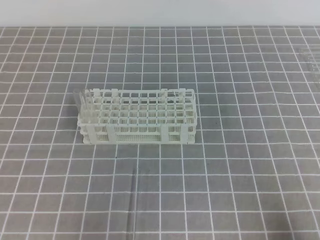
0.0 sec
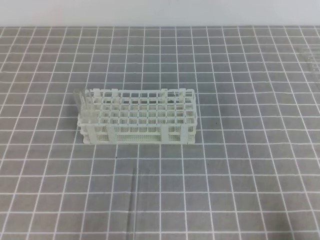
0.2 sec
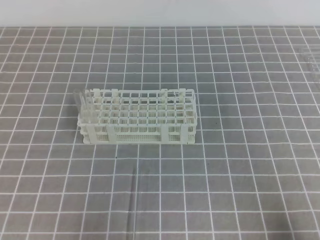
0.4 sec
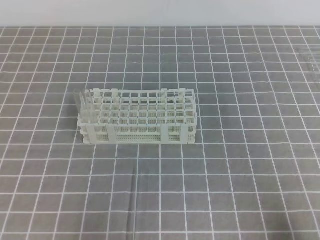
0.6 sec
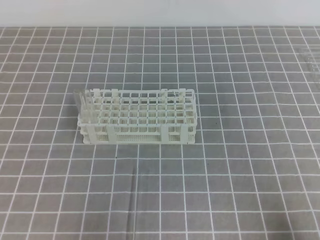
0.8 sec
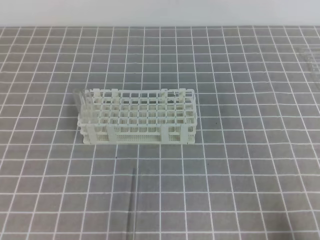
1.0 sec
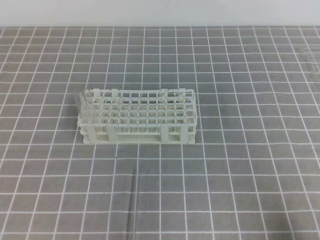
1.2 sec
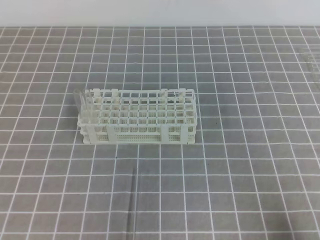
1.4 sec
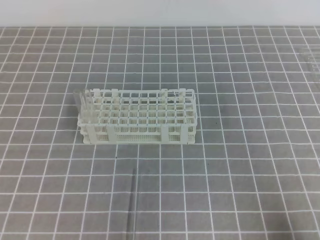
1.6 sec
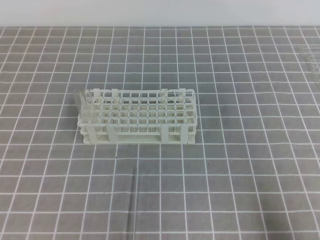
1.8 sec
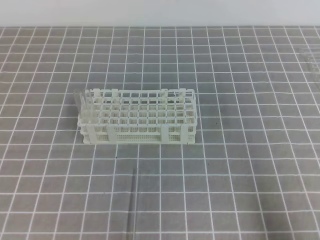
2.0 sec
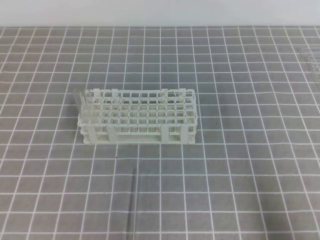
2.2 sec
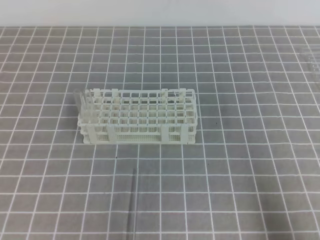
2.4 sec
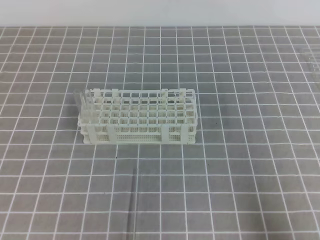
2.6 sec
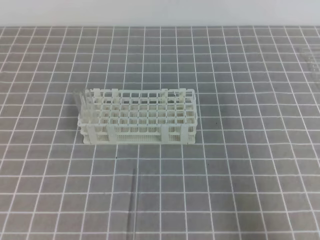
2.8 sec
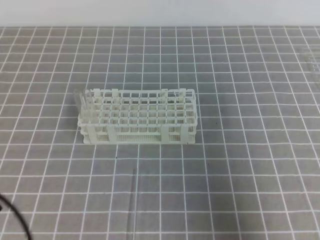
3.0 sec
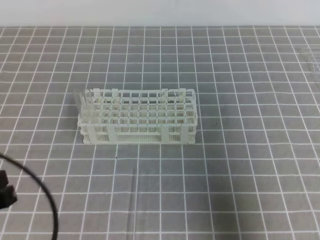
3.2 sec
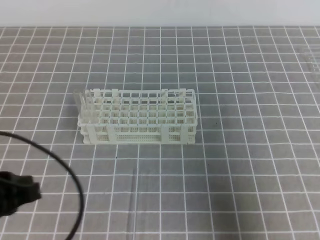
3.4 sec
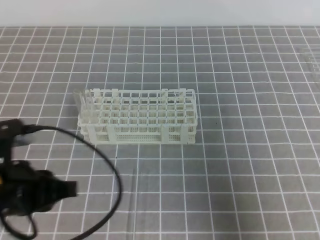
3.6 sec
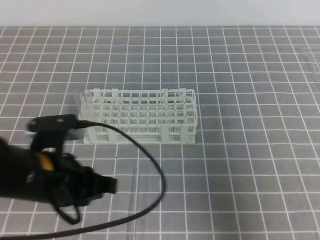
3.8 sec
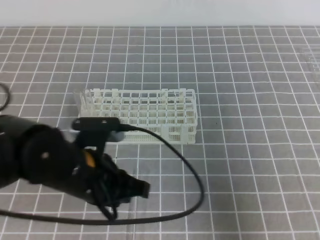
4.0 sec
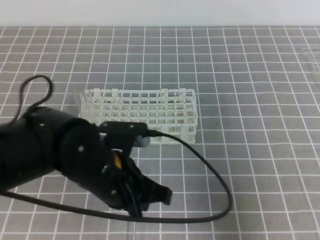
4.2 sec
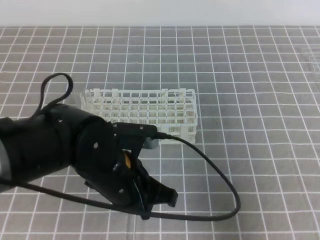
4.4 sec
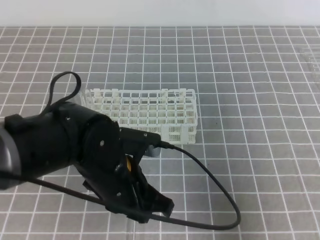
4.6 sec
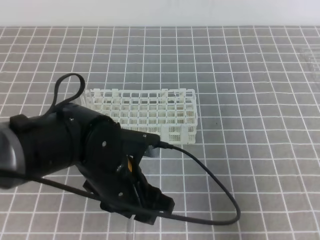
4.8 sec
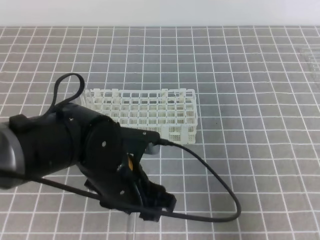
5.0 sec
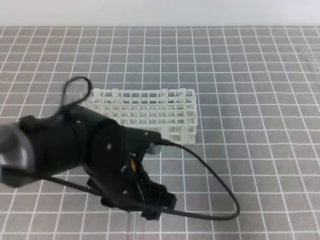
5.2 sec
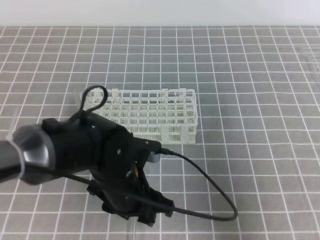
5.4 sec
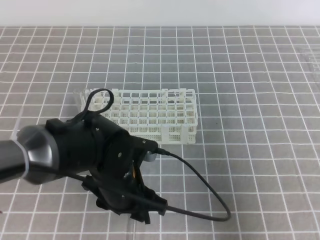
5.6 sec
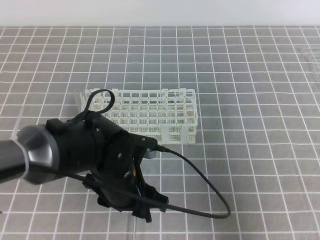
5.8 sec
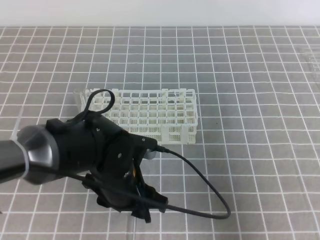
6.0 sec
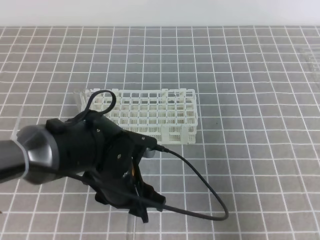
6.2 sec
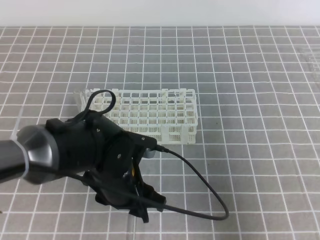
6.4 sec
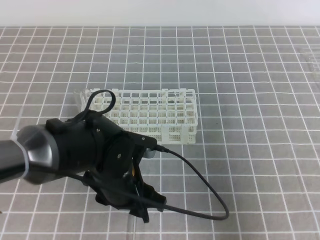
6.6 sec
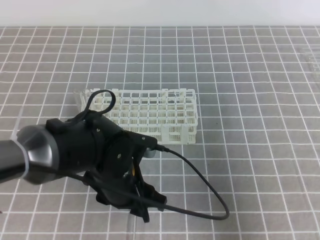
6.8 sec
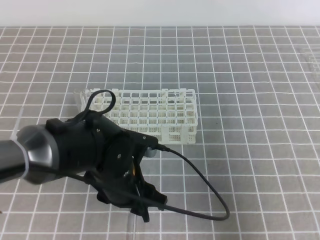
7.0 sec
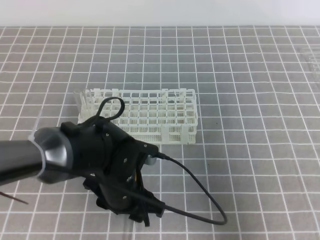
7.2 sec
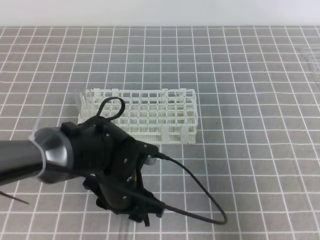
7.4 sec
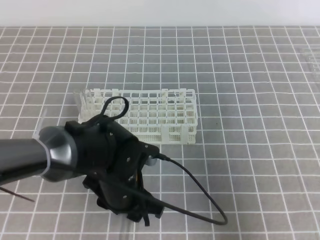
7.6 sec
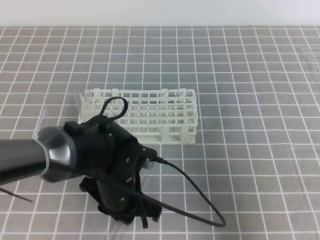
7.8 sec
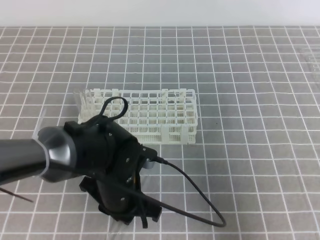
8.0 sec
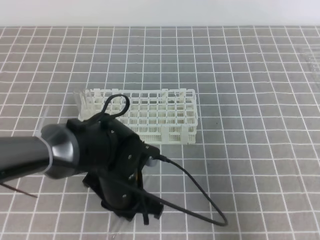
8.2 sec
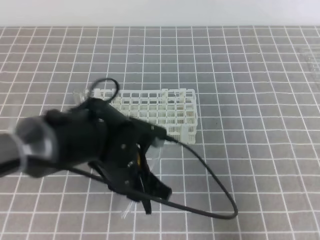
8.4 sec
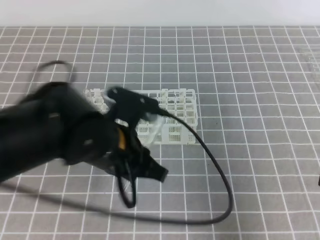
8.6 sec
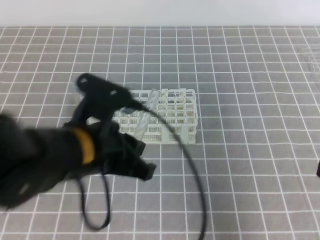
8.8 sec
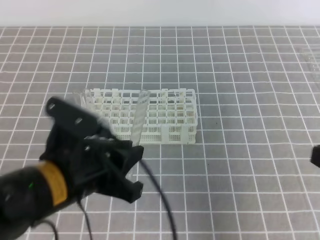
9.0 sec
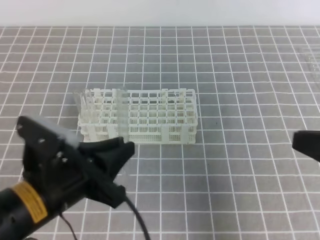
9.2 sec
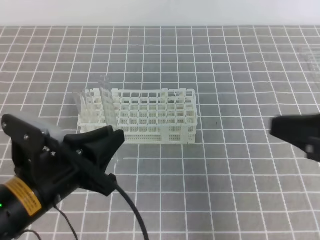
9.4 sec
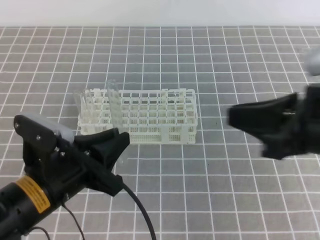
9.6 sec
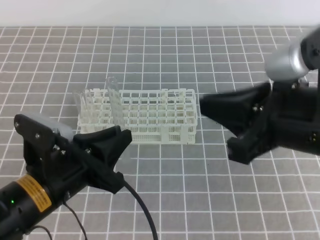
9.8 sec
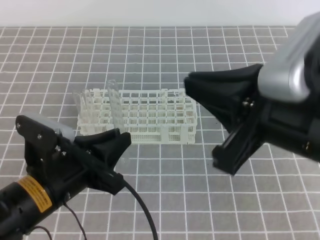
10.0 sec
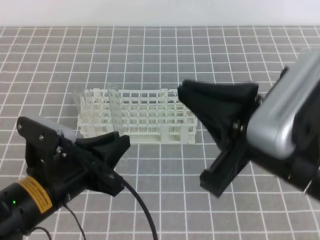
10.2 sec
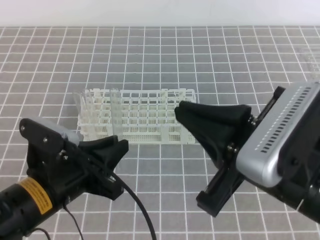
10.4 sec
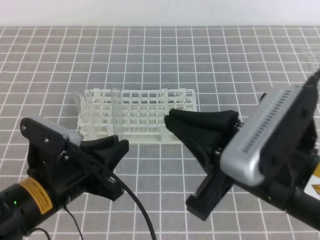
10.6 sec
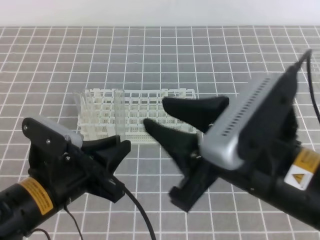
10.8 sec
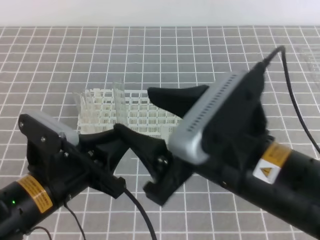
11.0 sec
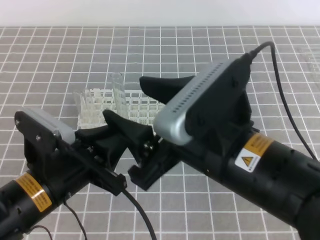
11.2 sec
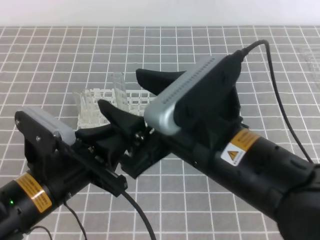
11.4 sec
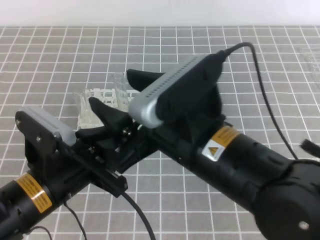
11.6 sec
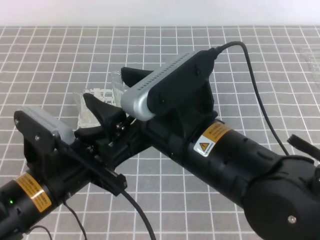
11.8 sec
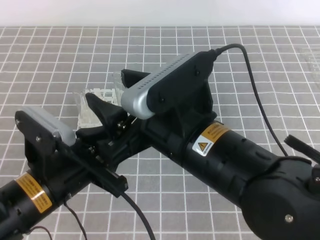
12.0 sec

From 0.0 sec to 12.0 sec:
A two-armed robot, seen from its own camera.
From 1.6 sec to 3.0 sec: The right gripper moves upward, approximately 10 cm. The left gripper ends up some 5 cm from where it was.
From 3.0 sec to 4.4 sec: The left gripper heads to the right and forward, covering about 25 cm.
From 4.4 sec to 6.0 sec: The left gripper shifts by some 5 cm, and opens up.
From 6.0 sec to 7.6 sec: The grippers stay close to where they were, moving slightly.
From 7.6 sec to 9.0 sec: The left gripper travels upward and to the left by approximately 10 cm, and closes up.
From 9.0 sec to 10.4 sec: The left gripper shifts by some 5 cm. The right gripper travels to the left by roughly 15 cm.
From 10.4 sec to 12.0 sec: The right gripper travels to the left by some 10 cm, and opens up.

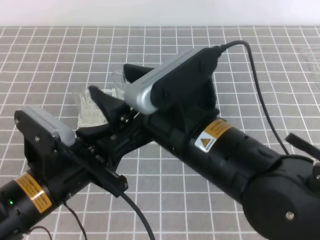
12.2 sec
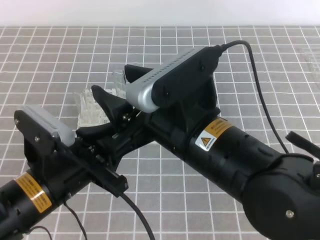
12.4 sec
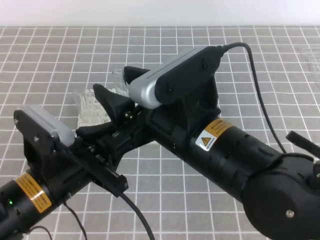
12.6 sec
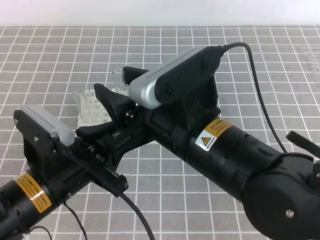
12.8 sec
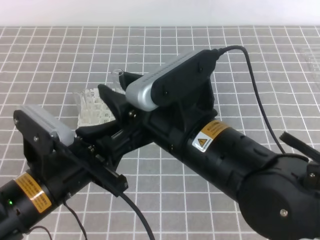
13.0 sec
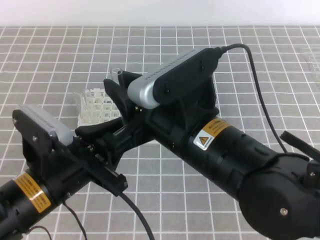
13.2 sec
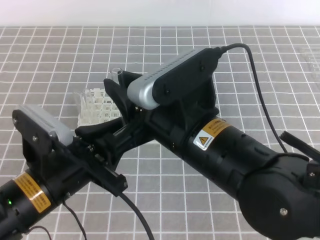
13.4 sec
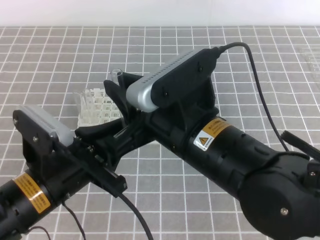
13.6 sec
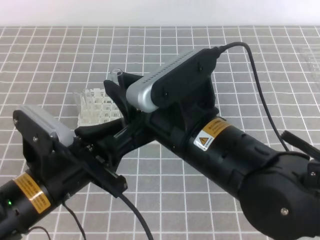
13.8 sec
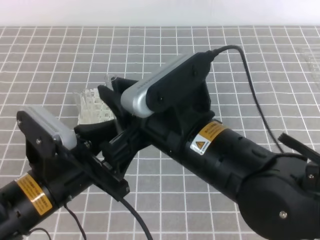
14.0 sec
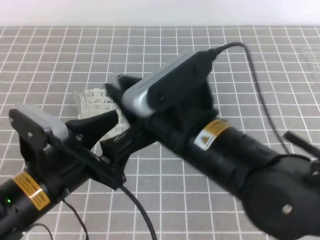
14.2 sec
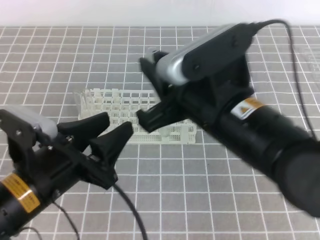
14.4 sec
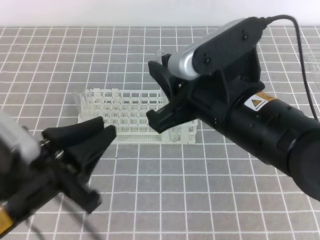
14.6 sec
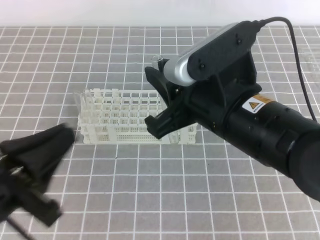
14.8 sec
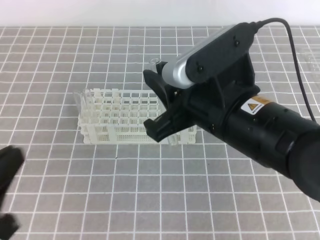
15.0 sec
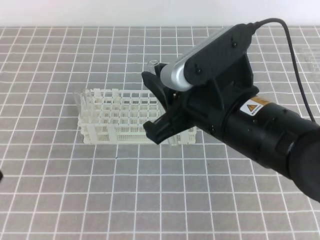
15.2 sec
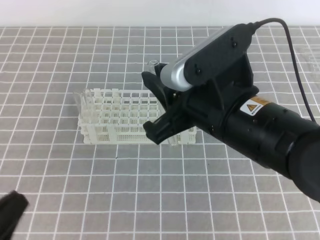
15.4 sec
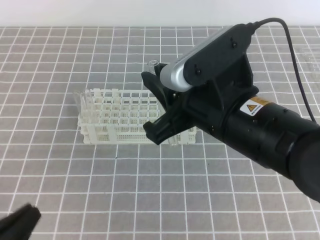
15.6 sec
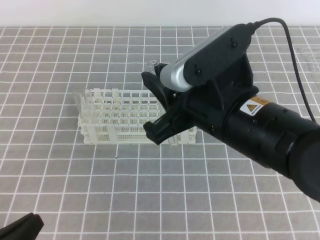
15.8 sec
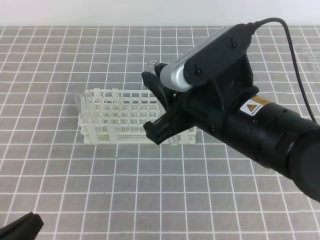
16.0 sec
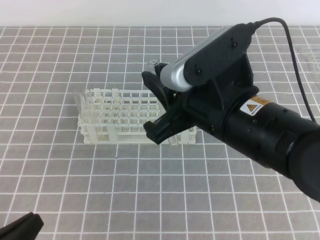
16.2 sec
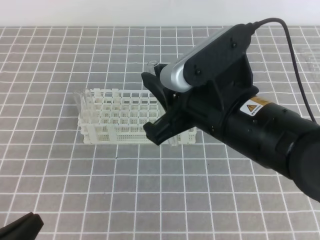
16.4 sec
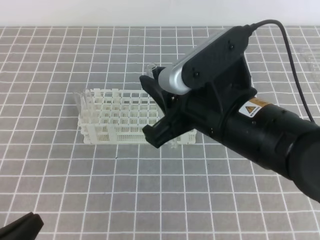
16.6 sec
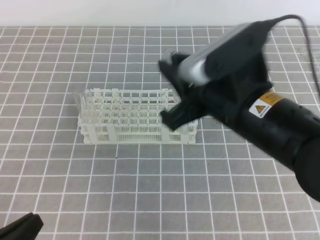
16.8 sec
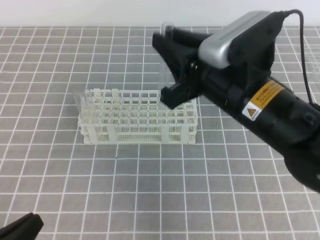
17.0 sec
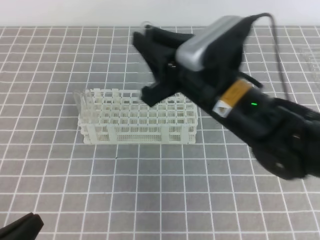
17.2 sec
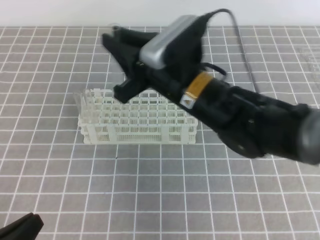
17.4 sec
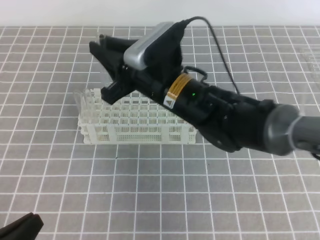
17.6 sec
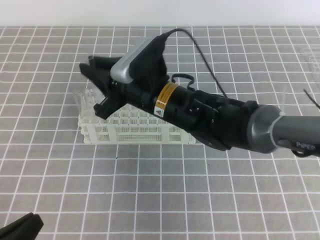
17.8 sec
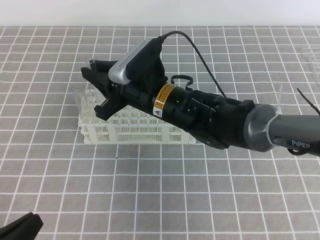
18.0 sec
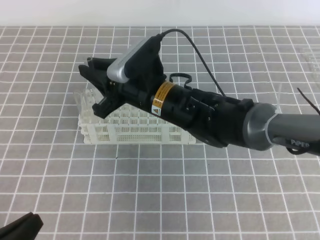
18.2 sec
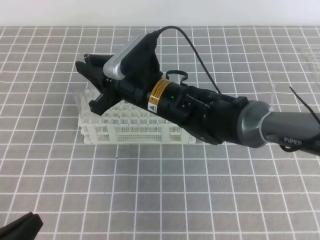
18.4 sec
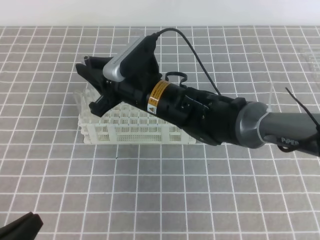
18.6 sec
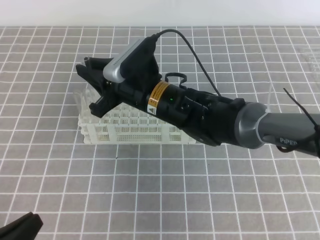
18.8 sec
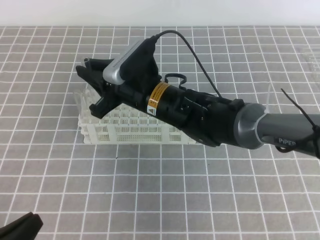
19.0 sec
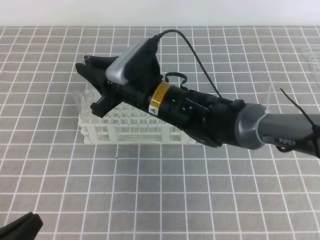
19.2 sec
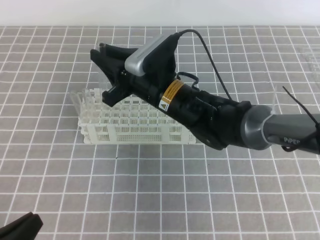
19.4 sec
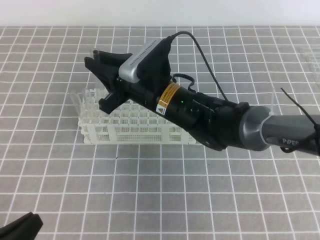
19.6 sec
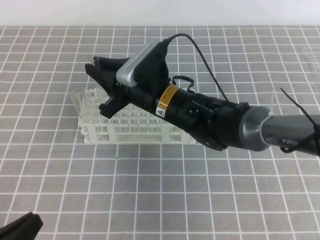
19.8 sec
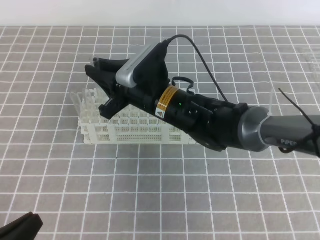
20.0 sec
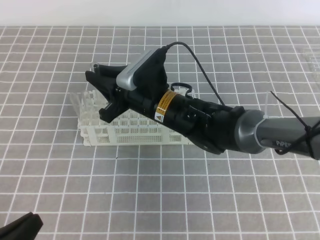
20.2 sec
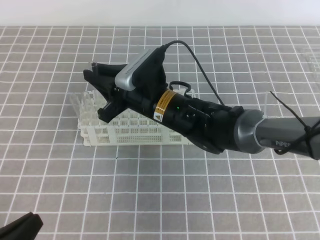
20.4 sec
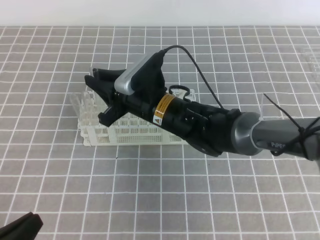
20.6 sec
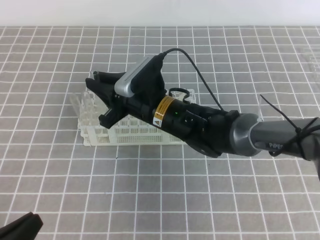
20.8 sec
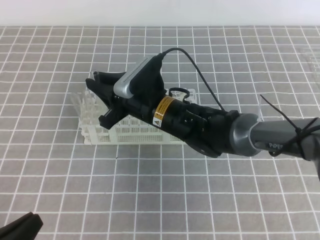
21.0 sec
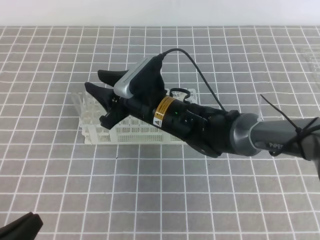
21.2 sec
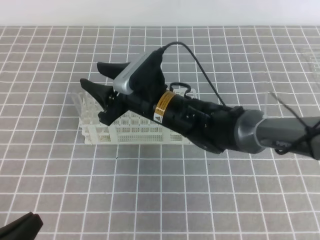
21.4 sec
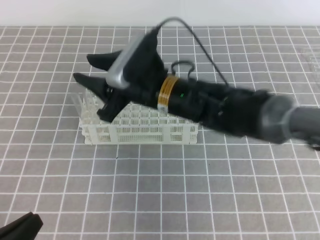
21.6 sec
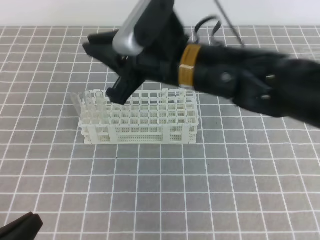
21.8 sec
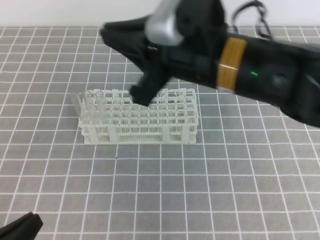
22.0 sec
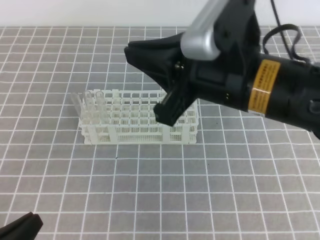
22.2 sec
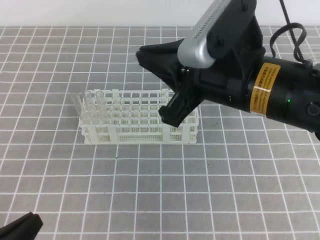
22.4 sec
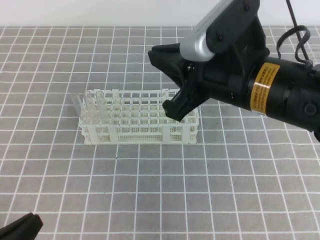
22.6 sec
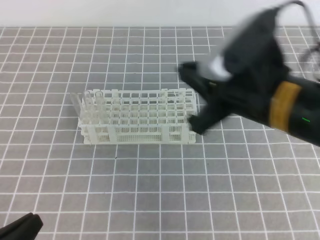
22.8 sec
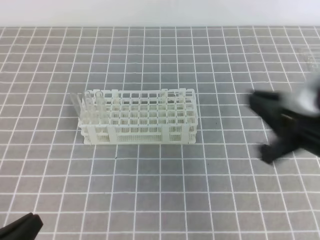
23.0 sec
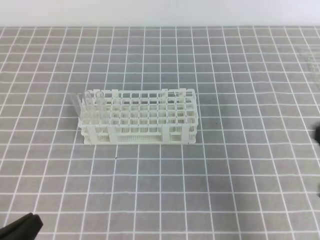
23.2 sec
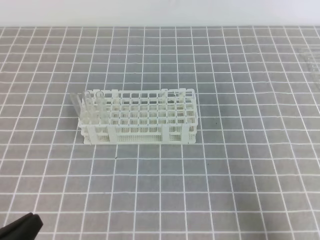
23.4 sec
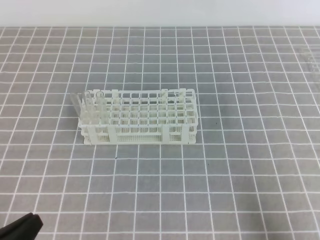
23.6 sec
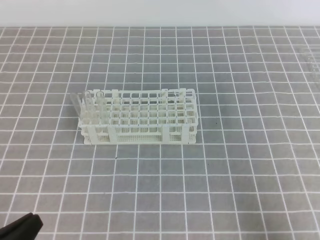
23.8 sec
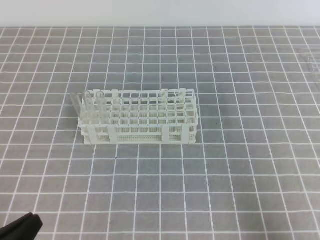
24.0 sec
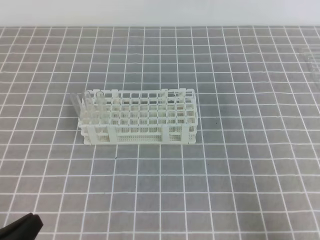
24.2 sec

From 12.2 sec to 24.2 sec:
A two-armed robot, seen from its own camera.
From 12.2 sec to 13.8 sec: The right gripper closes.
From 13.8 sec to 15.2 sec: The left gripper goes about 15 cm to the left and backward, and closes up.
From 15.2 sec to 16.6 sec: The left gripper travels downward by about 10 cm.
From 16.6 sec to 18.2 sec: The right gripper moves forward, to the left and downward, about 20 cm.
From 18.2 sec to 21.2 sec: There are only small adjustments of the grippers.
From 21.2 sec to 22.6 sec: The right gripper heads upward, to the right and backward, covering roughly 20 cm, and closes its fingers.
From 22.6 sec to 24.2 sec: The right gripper is displaced to the right, backward and downward by some 30 cm.
